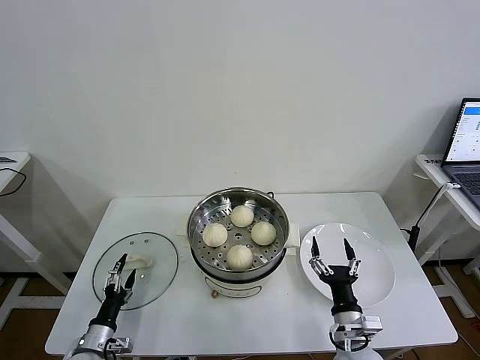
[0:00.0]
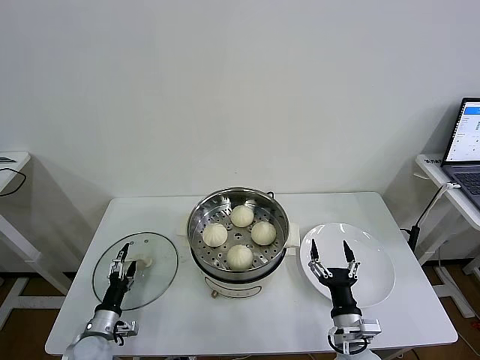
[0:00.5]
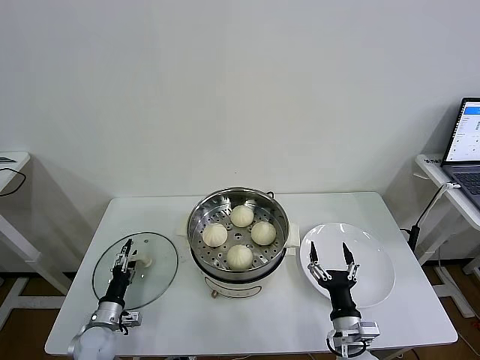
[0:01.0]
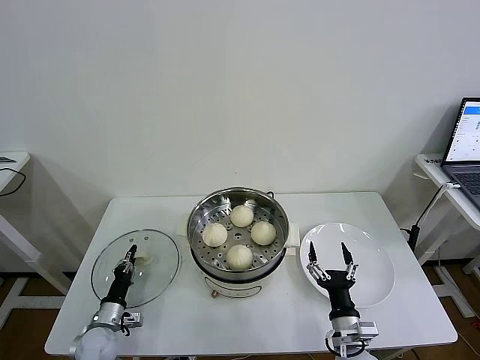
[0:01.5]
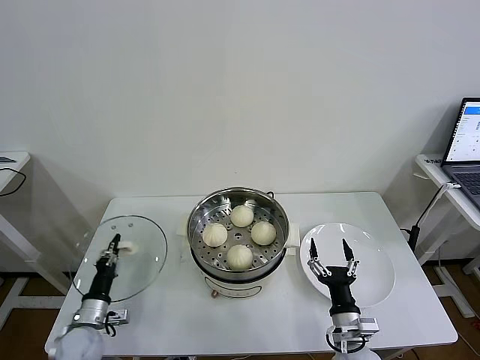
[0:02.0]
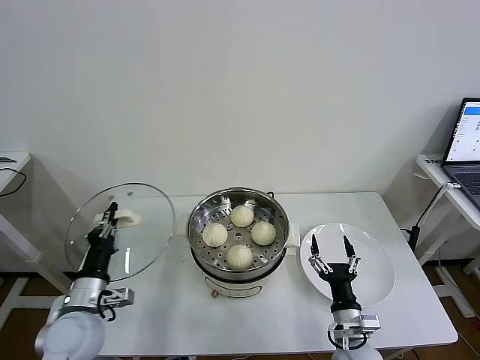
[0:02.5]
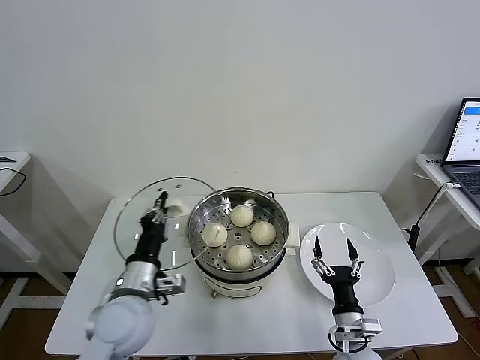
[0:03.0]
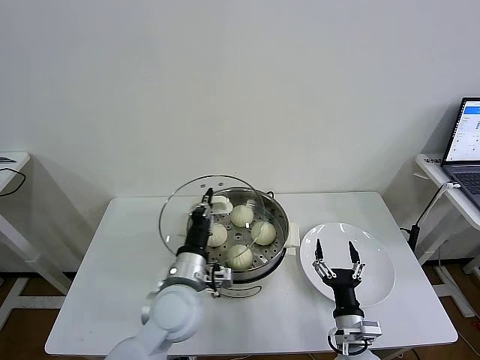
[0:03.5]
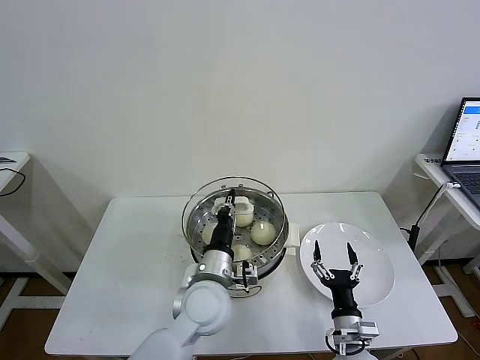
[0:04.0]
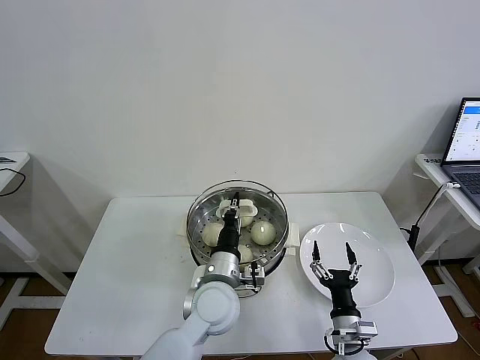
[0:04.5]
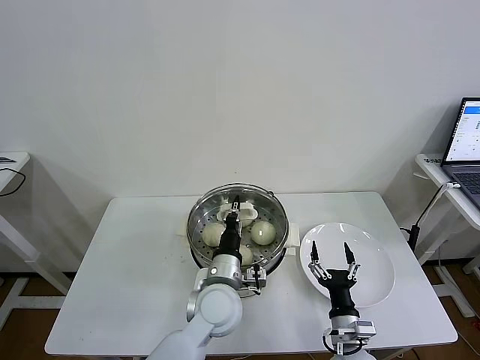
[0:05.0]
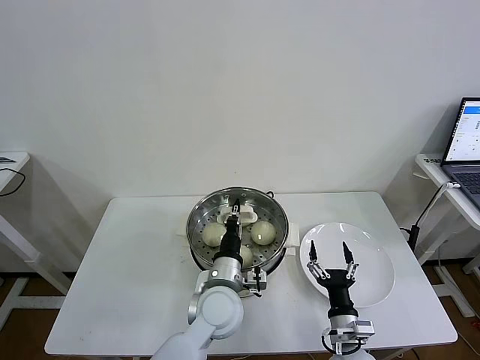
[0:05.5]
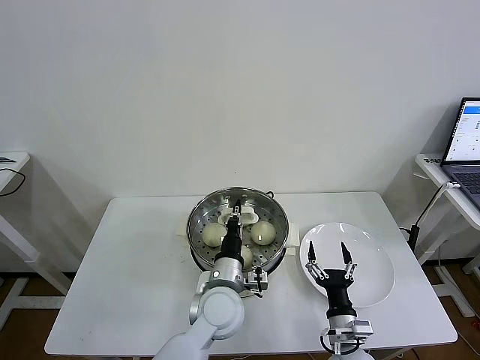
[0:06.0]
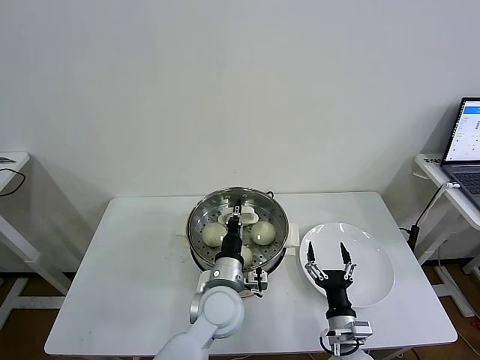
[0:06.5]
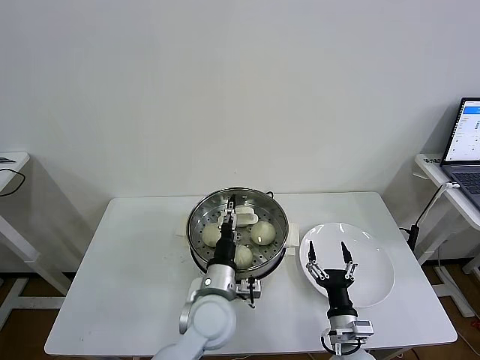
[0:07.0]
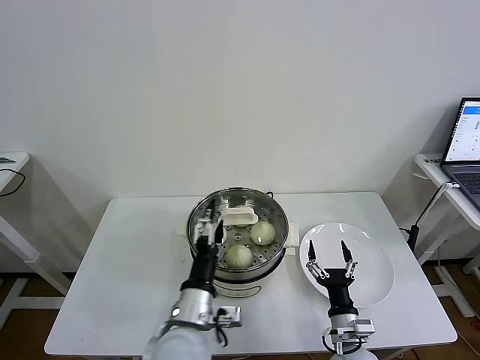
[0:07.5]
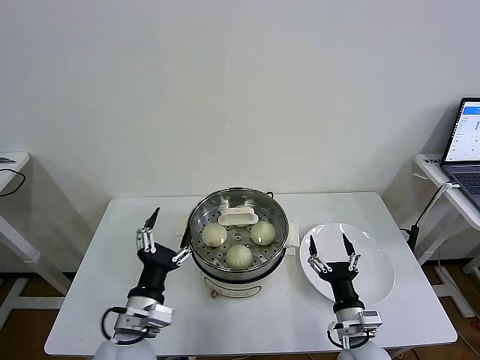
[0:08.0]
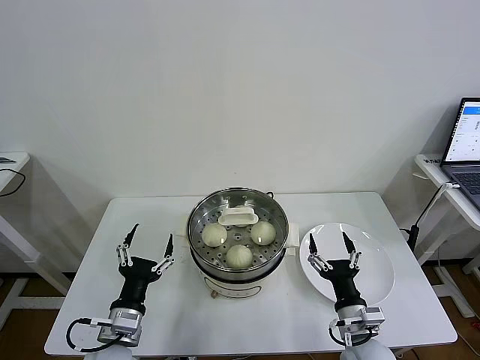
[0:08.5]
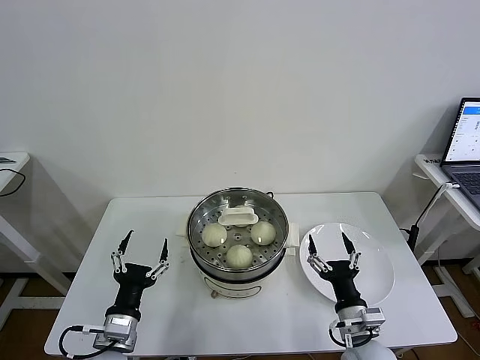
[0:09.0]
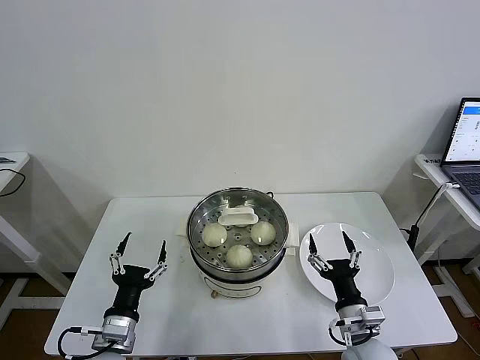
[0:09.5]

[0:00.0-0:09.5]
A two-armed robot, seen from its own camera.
Task of the whole recording: take steamed baozi put them in steamer then cover it.
Step, 0:02.0 to 0:06.5: Place the pot lid on the steamer with left gripper.
0:00.0 to 0:02.0: The left gripper shifts by some 5 cm, and closes its fingers.
0:02.0 to 0:04.0: The left gripper moves to the right and upward, about 35 cm.
0:04.0 to 0:05.5: There are only small adjustments of the grippers.
0:05.5 to 0:07.5: The left gripper shifts roughly 10 cm backward, and opens.
0:07.5 to 0:09.5: The right gripper travels upward by some 5 cm, while the left gripper travels to the left by roughly 15 cm.
